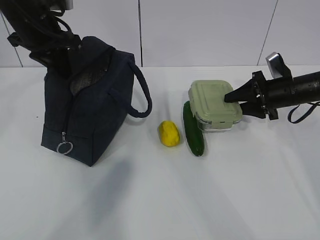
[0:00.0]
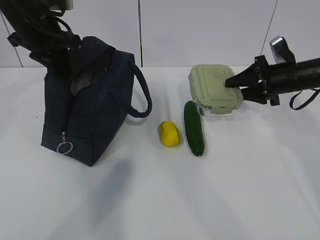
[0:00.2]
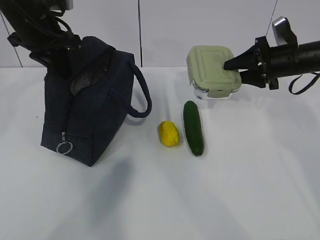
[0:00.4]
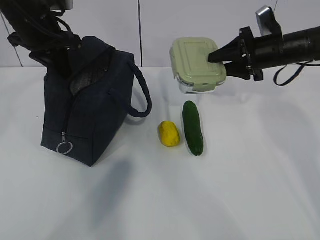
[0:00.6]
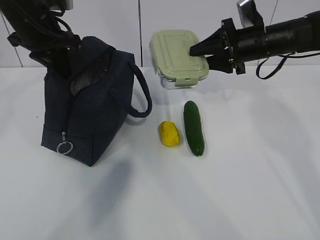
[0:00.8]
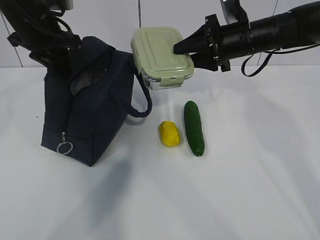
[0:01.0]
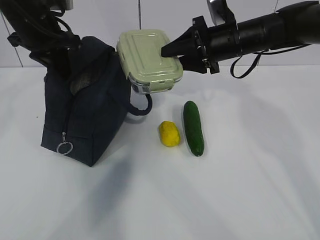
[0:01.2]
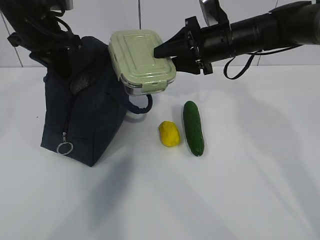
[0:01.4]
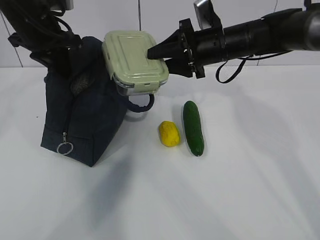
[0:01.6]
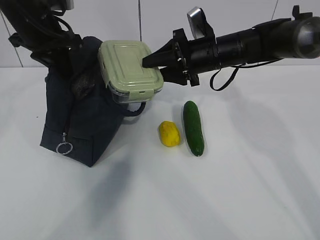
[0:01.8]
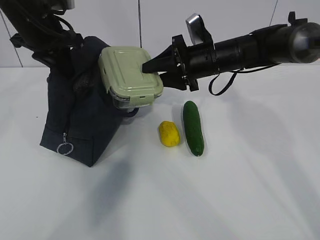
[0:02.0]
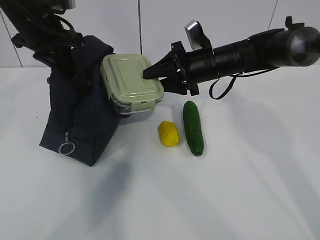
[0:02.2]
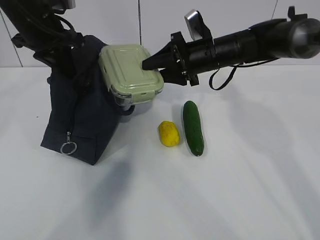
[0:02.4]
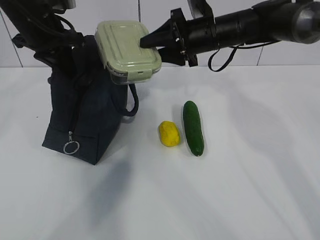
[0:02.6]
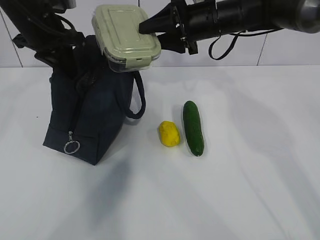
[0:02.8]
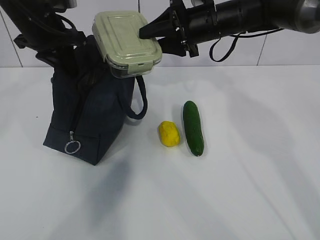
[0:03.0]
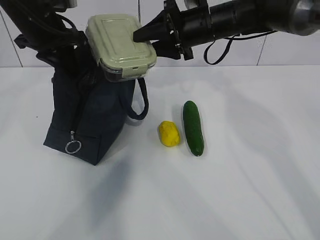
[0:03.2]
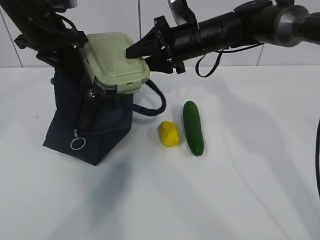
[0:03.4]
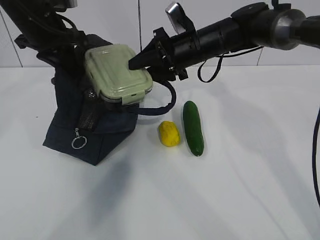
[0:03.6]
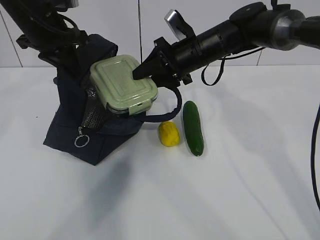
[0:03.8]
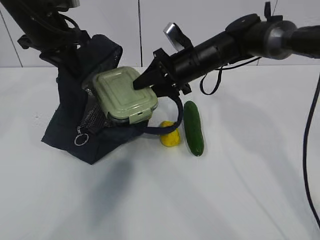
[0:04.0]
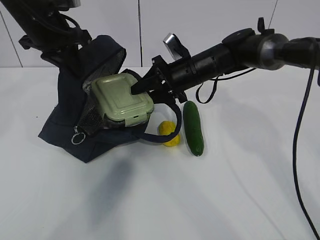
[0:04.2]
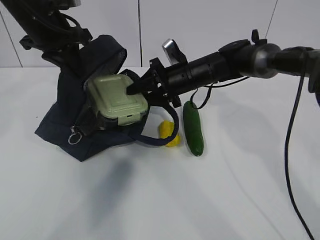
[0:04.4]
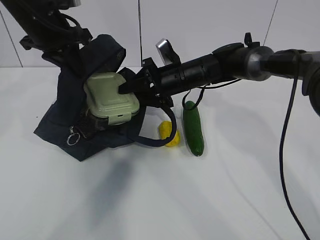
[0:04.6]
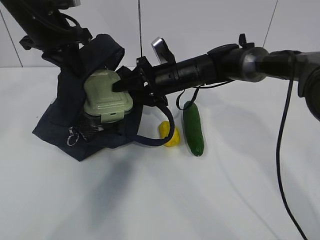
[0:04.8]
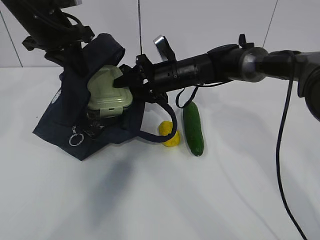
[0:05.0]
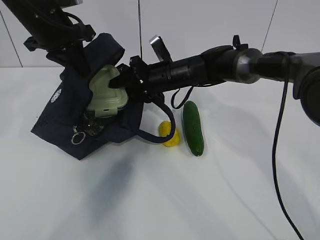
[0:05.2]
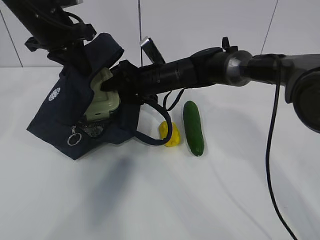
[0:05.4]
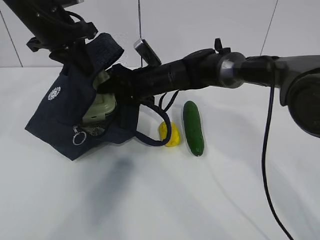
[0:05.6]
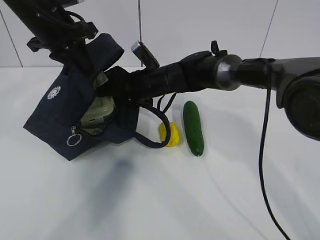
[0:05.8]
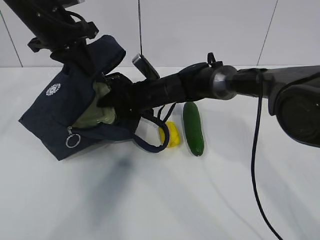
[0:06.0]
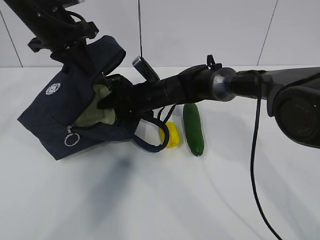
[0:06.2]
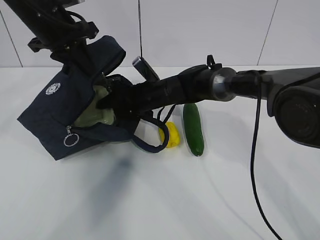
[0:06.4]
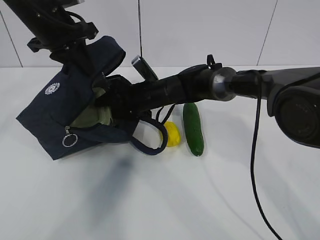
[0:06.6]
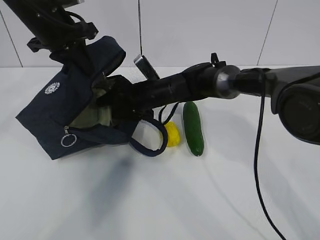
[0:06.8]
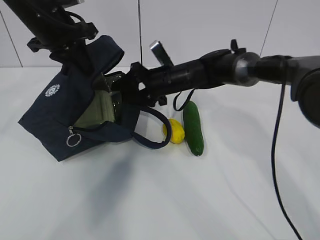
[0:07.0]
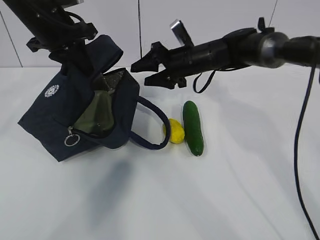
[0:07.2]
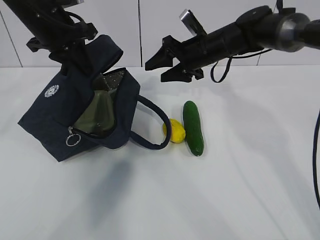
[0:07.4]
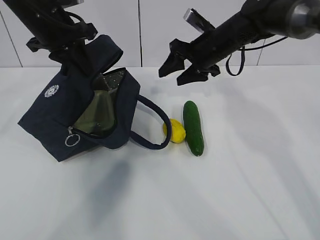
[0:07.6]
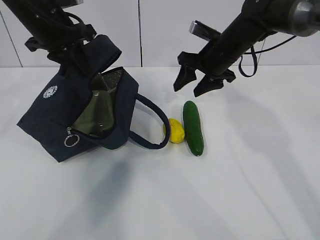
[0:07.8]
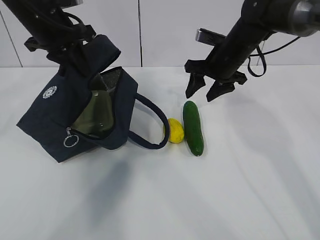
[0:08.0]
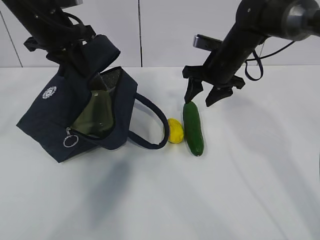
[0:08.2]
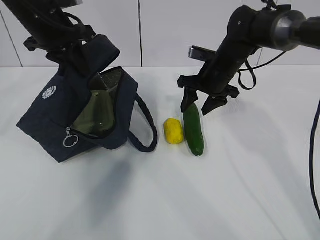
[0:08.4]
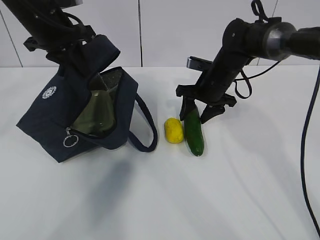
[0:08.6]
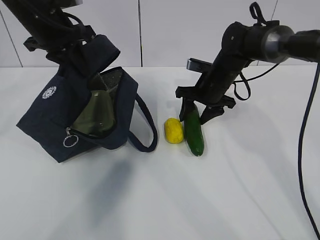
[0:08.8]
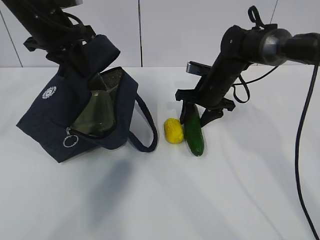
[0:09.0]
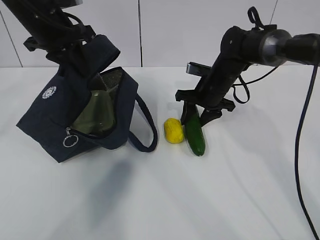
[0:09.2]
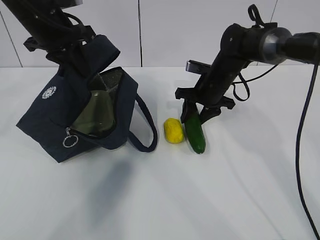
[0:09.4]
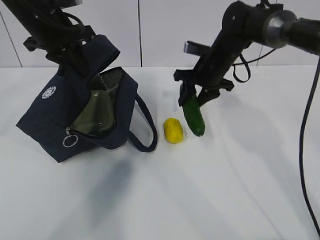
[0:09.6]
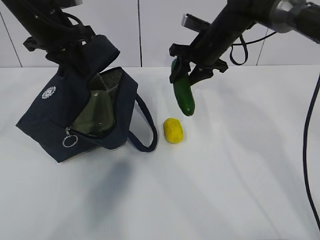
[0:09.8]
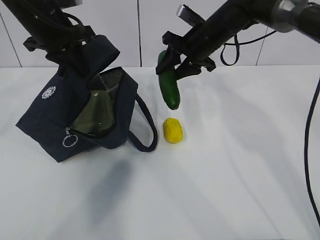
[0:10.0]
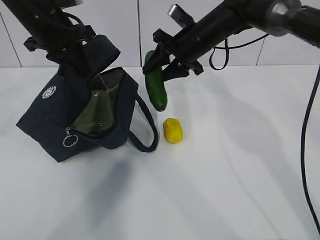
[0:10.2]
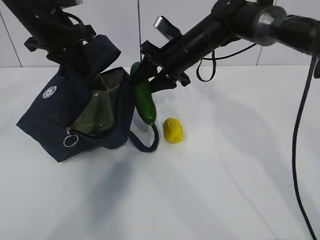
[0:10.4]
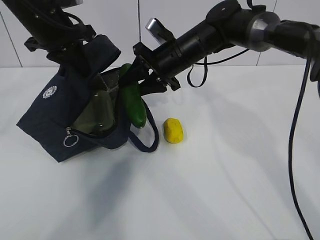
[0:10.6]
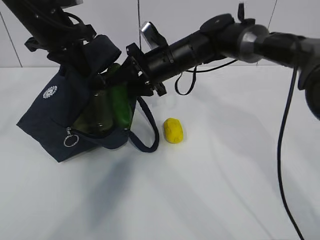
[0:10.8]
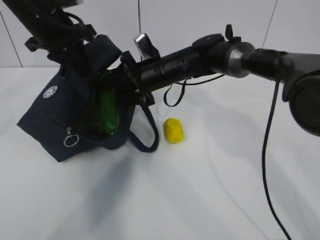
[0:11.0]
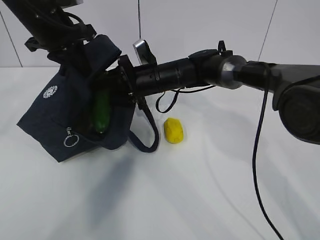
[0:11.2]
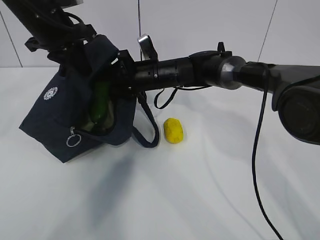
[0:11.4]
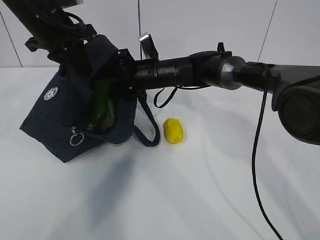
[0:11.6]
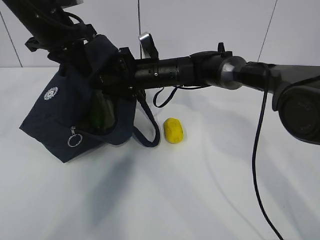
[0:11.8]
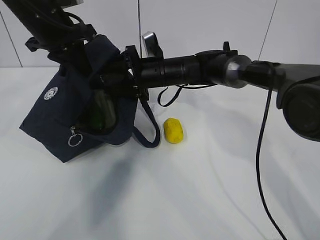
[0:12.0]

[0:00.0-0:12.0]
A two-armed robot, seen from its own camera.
Step, 0:00.0 to 0:03.2: Place it into the bag with your right hand.
Step, 0:03.4 to 0:05.0: Grab the cucumber with your right hand.
Step, 0:05.4 to 0:07.4: Place it into the bag with your right hand.
Step, 0:07.6 to 0:10.8: Grab the lemon with your right hand.
0:00.0 to 0:01.6: The right gripper is displaced to the left and upward by roughly 20 cm.
0:01.6 to 0:03.0: There are only small adjustments of the grippers.
0:03.0 to 0:04.4: The right gripper goes about 10 cm downward.
0:04.4 to 0:06.0: The right gripper shifts roughly 10 cm to the left.
0:06.0 to 0:07.6: The right gripper goes some 15 cm to the right and upward.
0:07.6 to 0:09.0: The right gripper shifts roughly 10 cm downward.
0:09.0 to 0:10.4: The right gripper moves upward and to the left, roughly 10 cm.
0:10.4 to 0:12.0: The right gripper shifts approximately 5 cm downward.

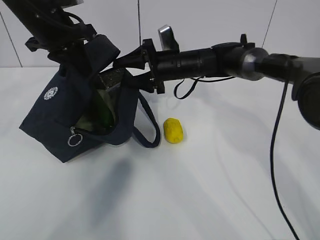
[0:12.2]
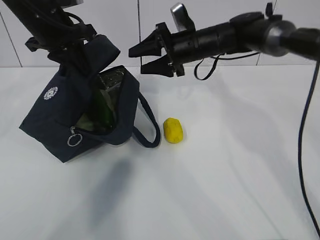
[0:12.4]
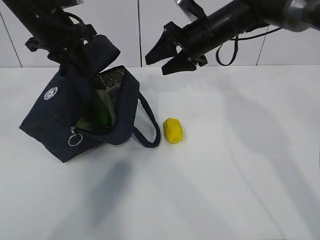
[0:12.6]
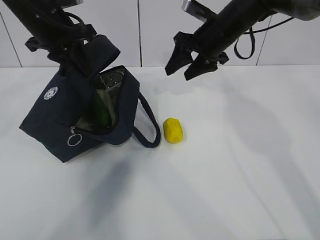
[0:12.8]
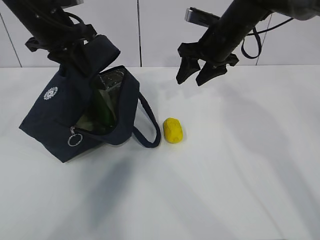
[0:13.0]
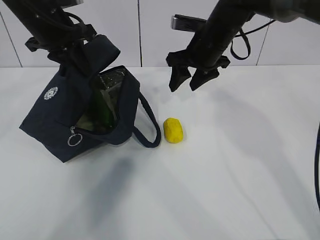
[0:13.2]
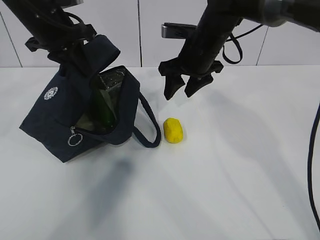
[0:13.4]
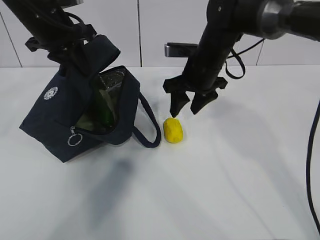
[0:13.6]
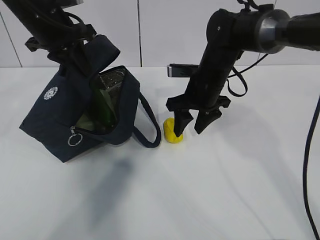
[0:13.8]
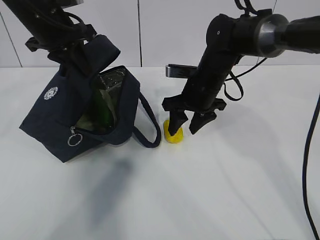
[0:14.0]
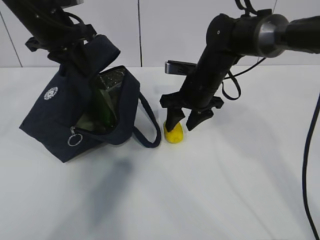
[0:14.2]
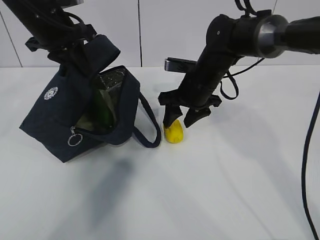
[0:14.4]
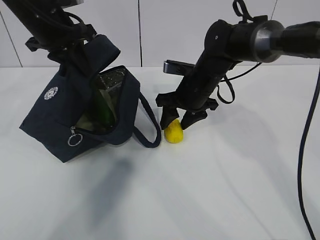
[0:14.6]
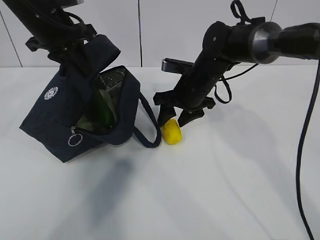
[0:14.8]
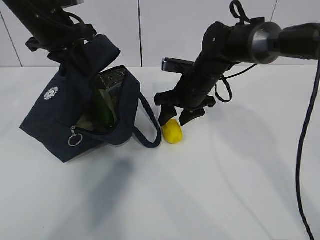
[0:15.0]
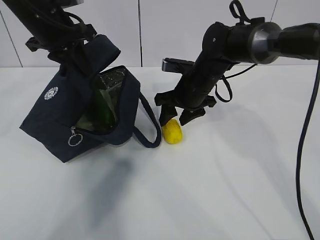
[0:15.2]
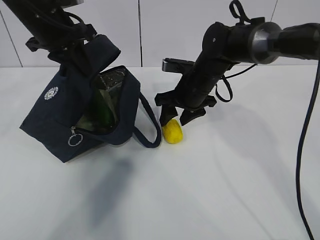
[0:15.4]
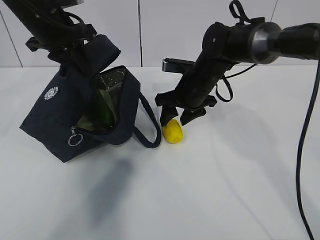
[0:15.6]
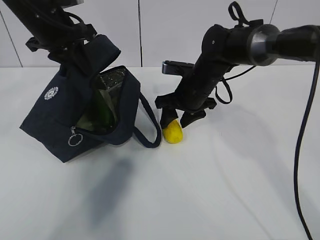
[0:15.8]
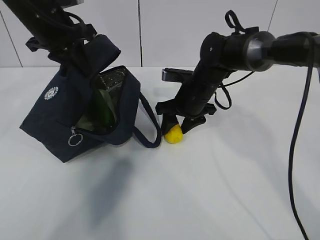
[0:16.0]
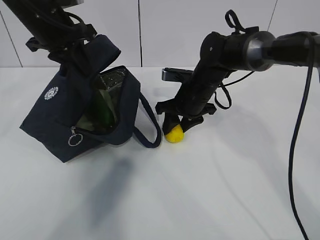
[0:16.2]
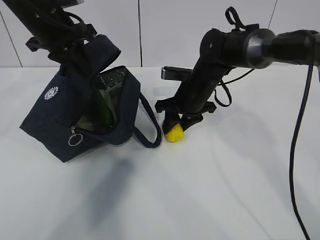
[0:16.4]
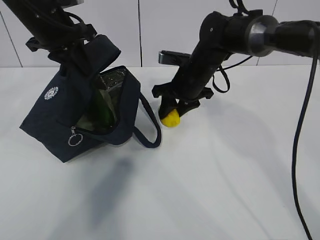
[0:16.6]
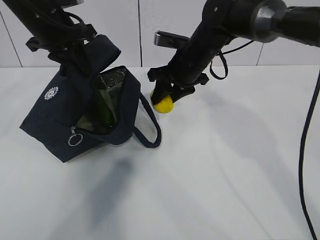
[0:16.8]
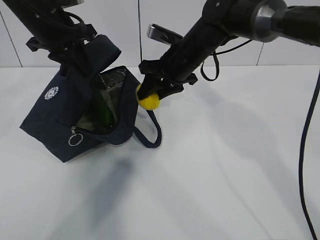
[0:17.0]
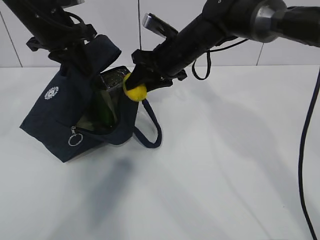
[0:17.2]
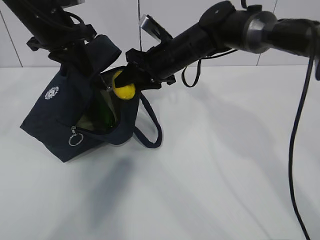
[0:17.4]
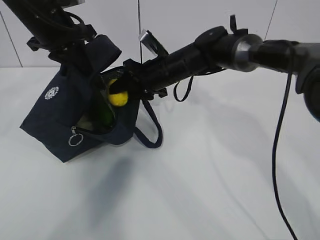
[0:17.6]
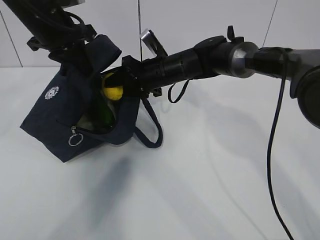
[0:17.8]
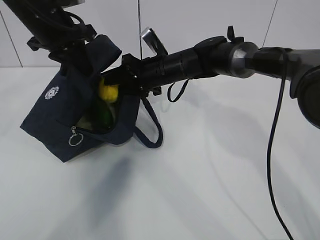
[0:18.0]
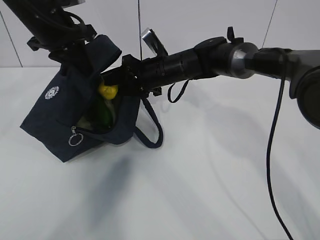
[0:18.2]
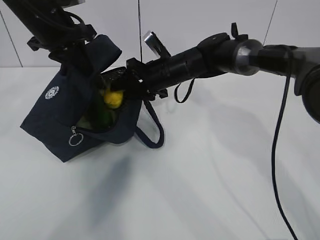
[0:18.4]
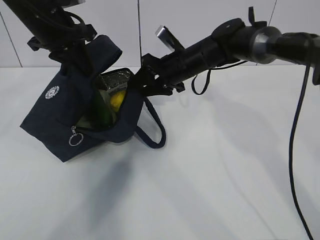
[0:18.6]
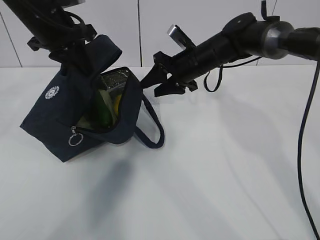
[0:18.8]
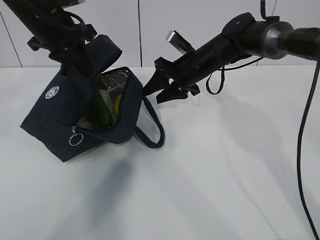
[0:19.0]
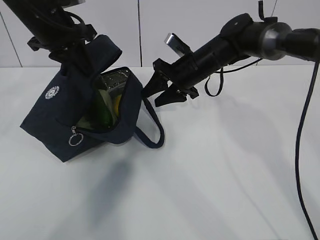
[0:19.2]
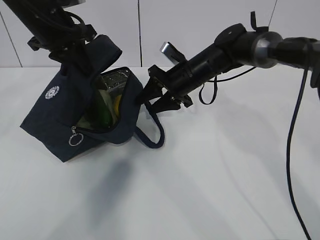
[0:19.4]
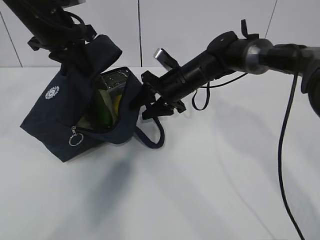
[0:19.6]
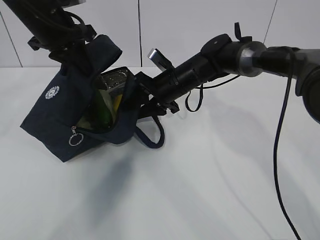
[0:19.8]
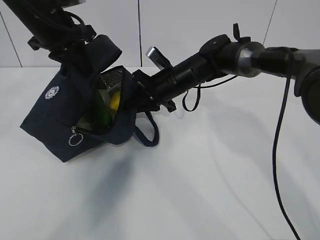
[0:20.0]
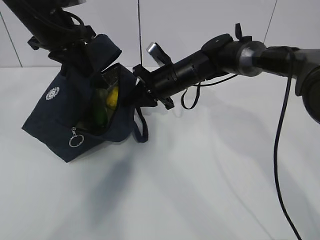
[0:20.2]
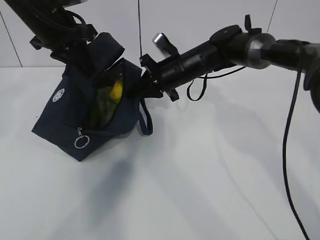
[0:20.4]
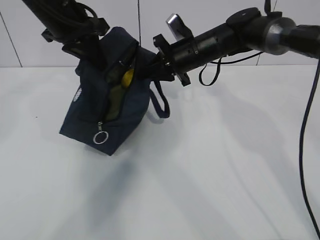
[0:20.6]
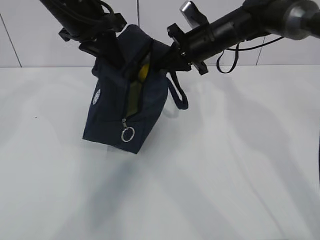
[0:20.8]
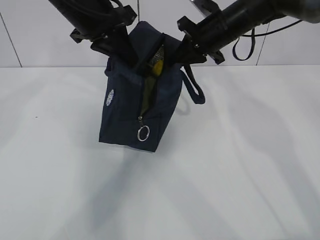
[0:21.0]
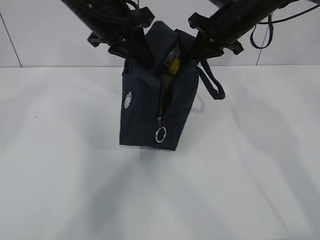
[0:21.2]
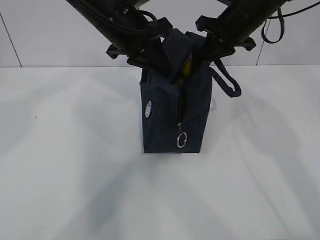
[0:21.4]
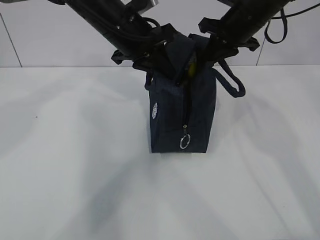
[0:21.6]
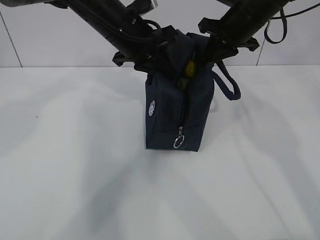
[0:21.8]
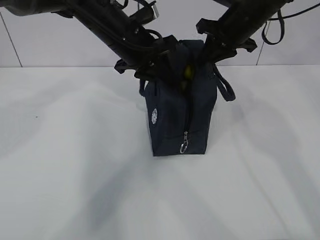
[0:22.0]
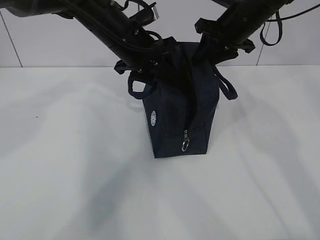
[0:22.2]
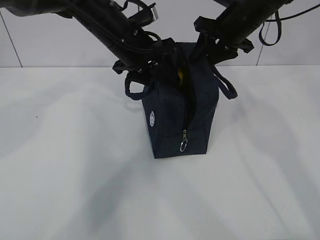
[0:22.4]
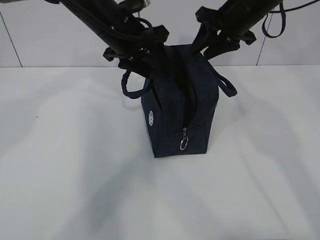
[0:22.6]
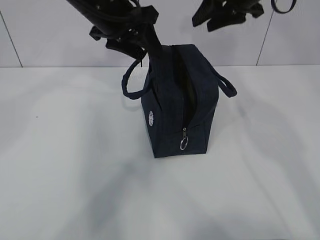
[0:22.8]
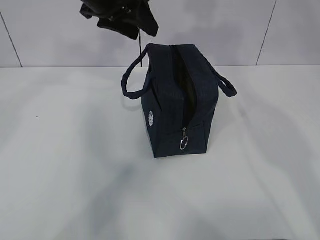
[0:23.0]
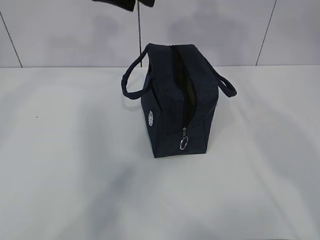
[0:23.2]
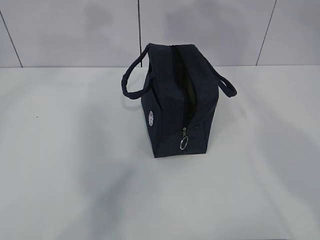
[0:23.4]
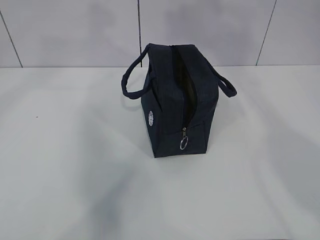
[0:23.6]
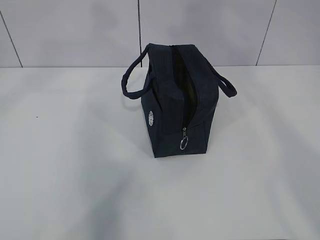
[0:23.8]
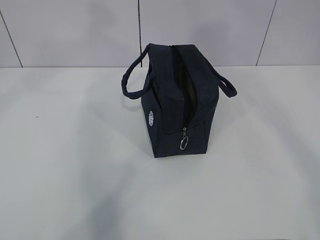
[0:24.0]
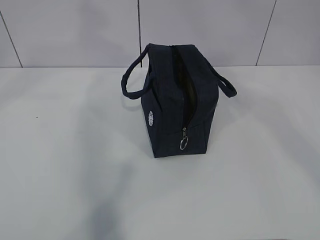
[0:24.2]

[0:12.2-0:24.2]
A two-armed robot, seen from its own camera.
Step, 0:13.2 to 0:14.0: Grab the lunch bag with your right hand.
Step, 0:14.2 to 0:16.2: Stand the lunch bag upright with your right hand.
0:12.2 to 0:13.8: The right gripper shifts approximately 5 cm backward, and goes upward and returns, some 10 cm each way.
0:13.8 to 0:16.6: There are only small adjustments of the grippers.
0:16.6 to 0:18.2: The right gripper travels to the left by roughly 5 cm.
0:19.8 to 0:21.2: The left gripper heads to the right, covering about 10 cm, while the right gripper travels upward and to the right by approximately 15 cm, and closes its fingers.
0:21.2 to 0:22.6: The right gripper opens its fingers. The left gripper opens.
0:22.6 to 0:24.2: The right gripper travels backward and upward by approximately 35 cm, while the left gripper moves upward and backward, roughly 25 cm.
